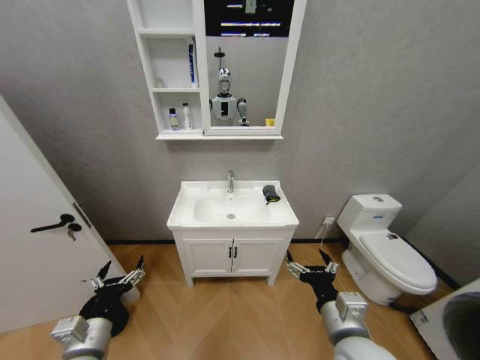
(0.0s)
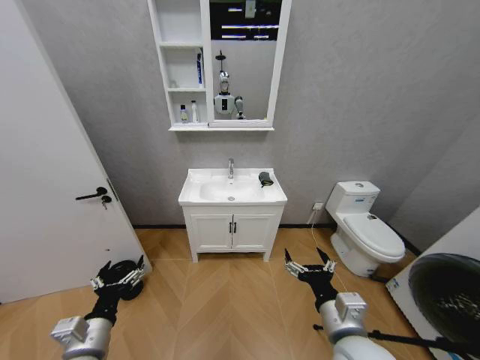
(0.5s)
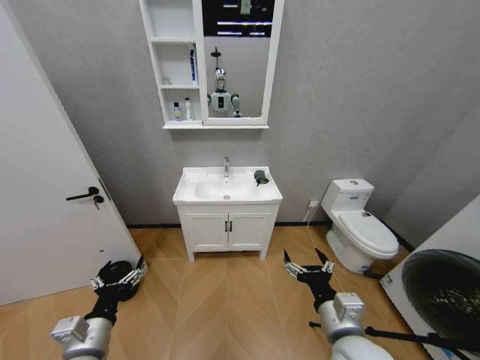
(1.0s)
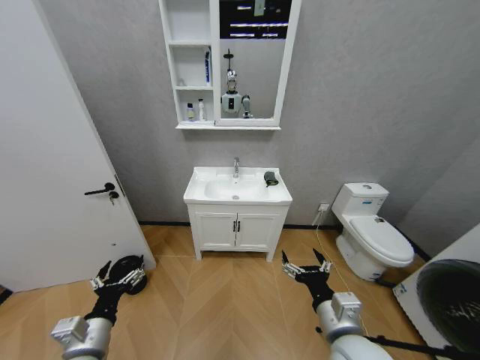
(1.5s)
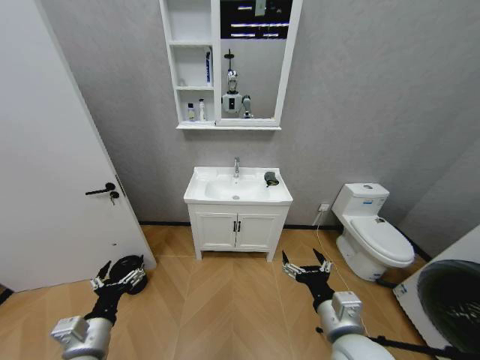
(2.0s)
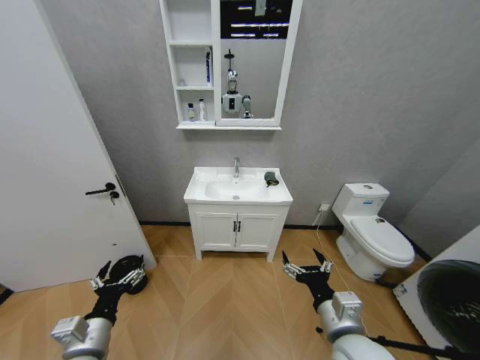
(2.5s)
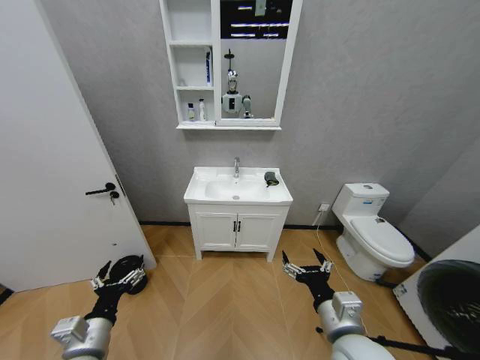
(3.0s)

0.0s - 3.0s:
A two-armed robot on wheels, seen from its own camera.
Task of the whole recording: Move facial cleanser and shampoo from washbasin to cabinet, then wipe washbasin with towel.
1.5s - 3.0s: Neither gripper changes place.
